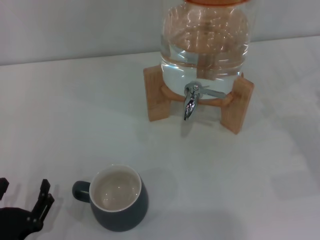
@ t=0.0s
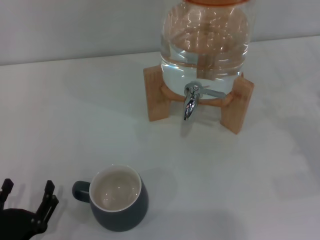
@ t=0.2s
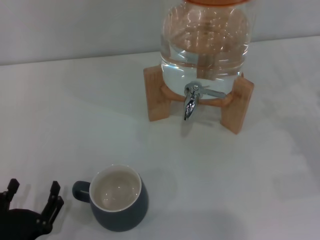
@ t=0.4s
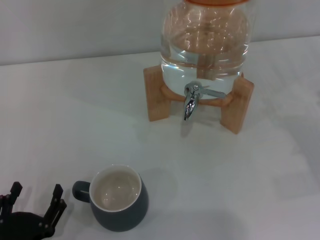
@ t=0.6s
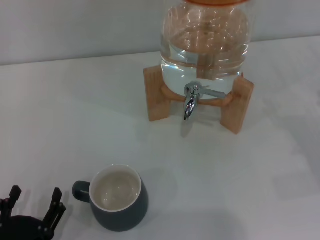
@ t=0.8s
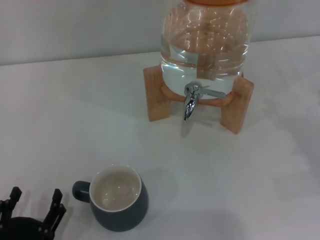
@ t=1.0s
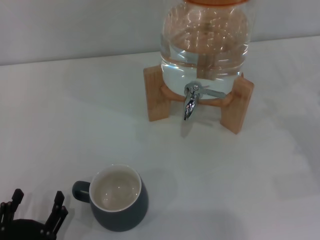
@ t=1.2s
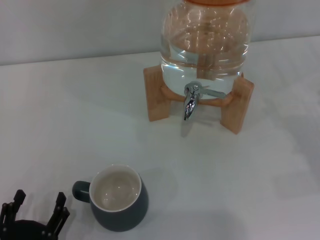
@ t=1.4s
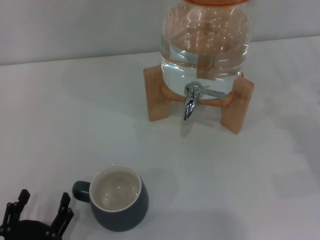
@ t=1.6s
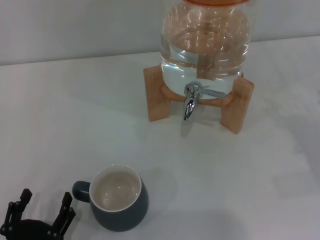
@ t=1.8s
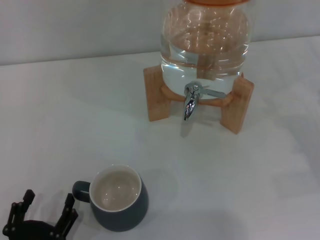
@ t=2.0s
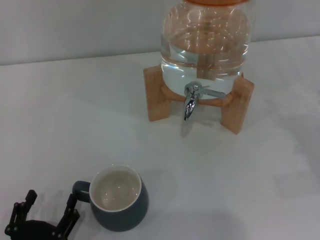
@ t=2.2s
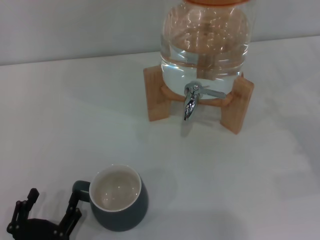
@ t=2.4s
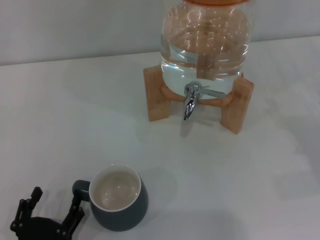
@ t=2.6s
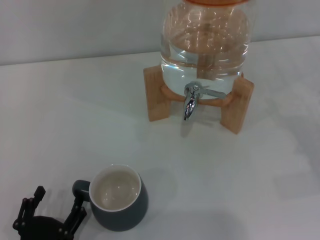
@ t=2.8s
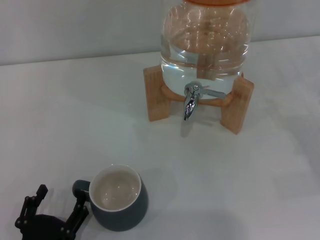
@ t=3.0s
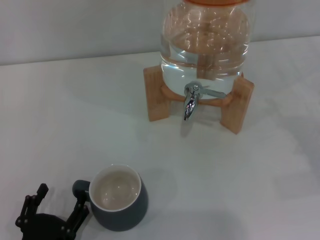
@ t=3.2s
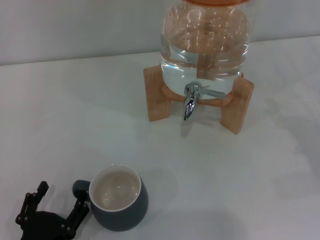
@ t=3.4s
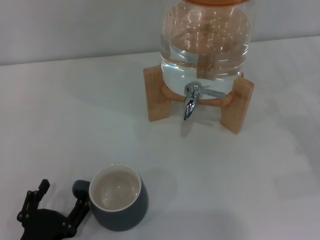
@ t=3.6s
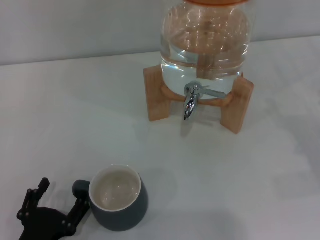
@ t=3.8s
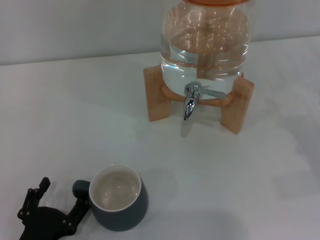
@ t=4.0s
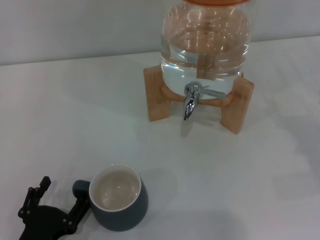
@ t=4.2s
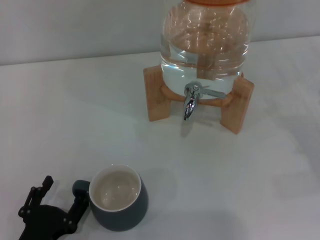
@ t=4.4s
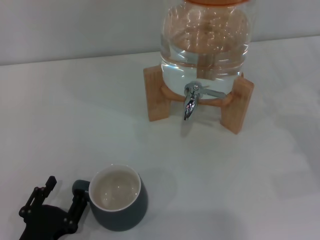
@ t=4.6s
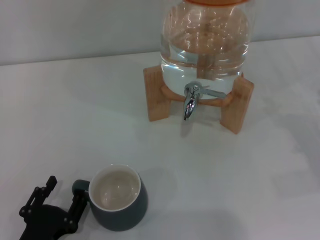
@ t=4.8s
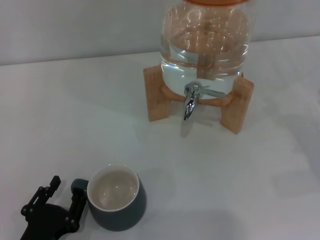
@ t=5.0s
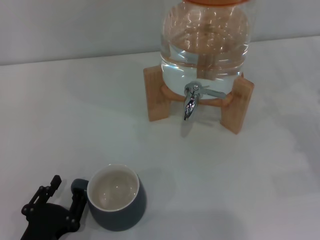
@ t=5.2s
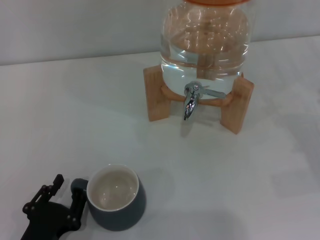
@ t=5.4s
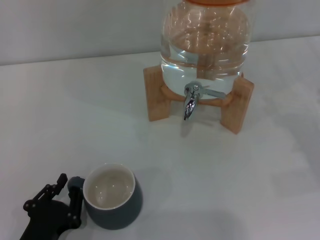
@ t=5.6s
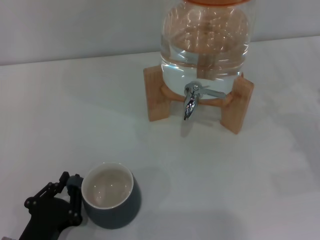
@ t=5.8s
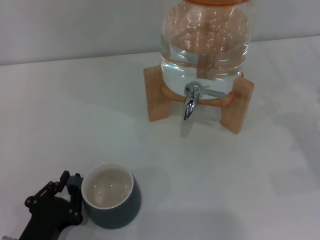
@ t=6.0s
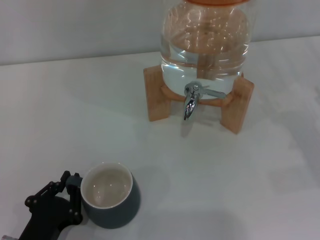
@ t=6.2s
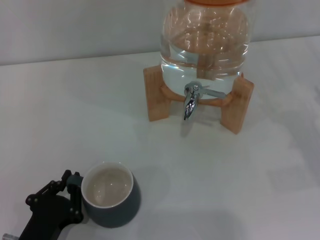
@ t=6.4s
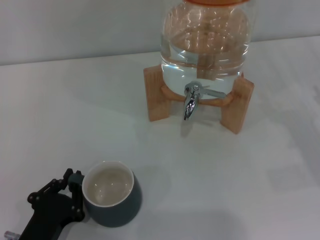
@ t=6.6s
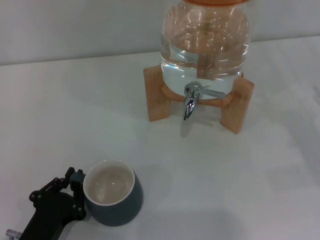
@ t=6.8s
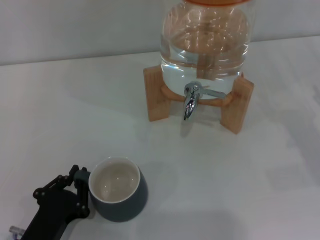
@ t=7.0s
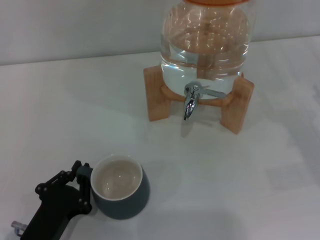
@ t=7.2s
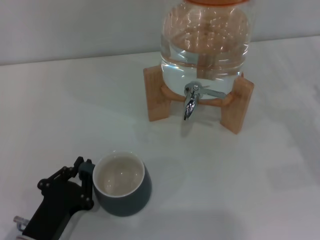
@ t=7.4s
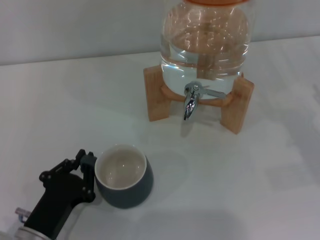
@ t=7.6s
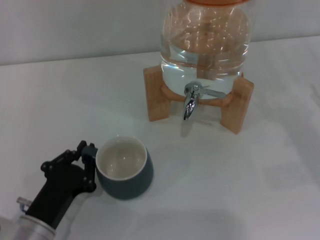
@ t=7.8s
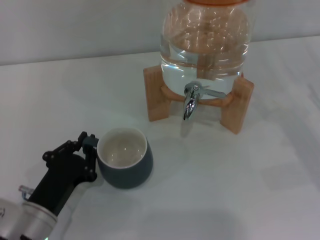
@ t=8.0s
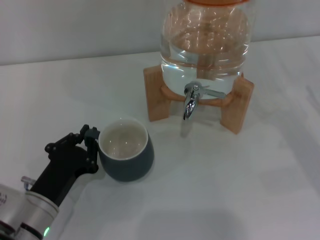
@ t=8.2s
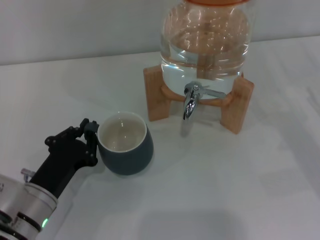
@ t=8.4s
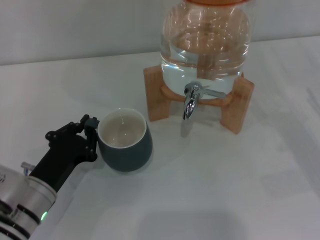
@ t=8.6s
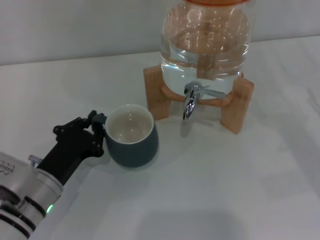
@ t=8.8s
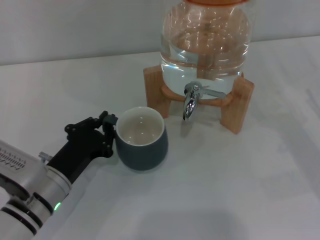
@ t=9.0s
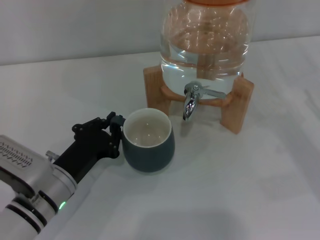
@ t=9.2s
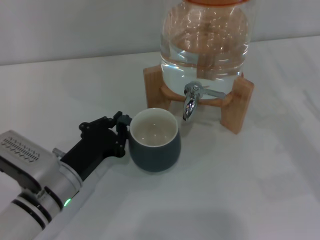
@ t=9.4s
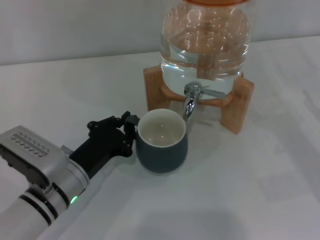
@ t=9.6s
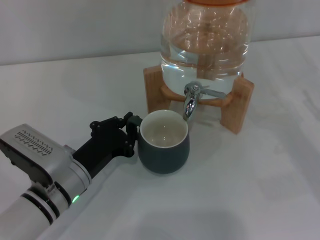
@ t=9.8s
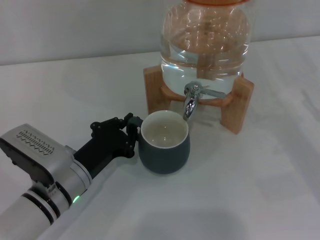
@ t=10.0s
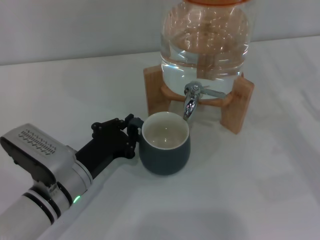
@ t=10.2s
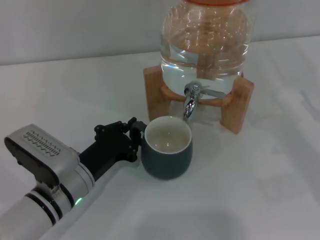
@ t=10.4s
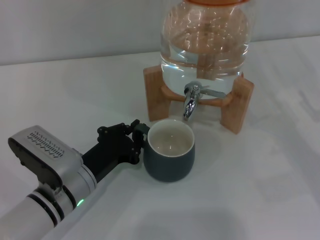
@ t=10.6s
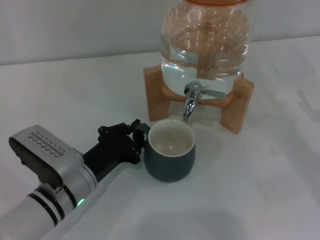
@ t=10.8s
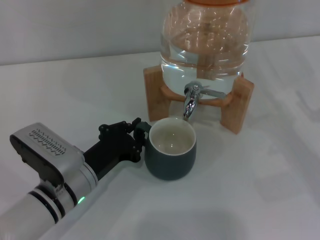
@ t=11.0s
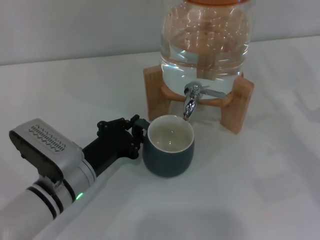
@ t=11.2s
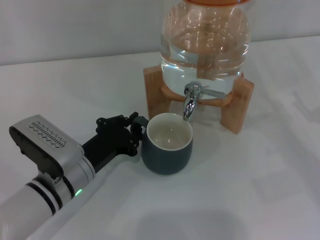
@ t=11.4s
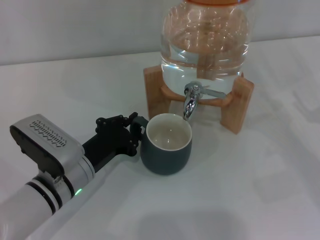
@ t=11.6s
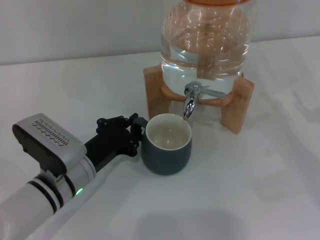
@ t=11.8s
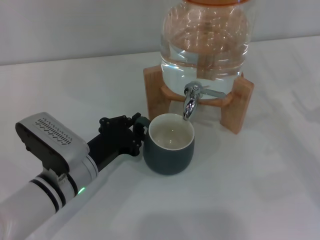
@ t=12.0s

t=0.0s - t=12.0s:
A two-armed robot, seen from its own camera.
Task of the whole recording: the left gripper pick up the black cup and place it horizontally under the faucet, the right gripper turn on the faucet to fill the cup, and then turn off the faucet.
t=0.0s - t=1.6s: There are only small adjustments of the grippers.
t=1.6s - t=3.0s: The two grippers keep their place.
t=3.0s - t=4.4s: The grippers stay close to where they were, moving slightly.
t=4.4s - t=6.0s: The left gripper closes its fingers.
t=6.0s - t=7.6s: The grippers stay close to where they were, moving slightly.
t=7.6s - t=9.0s: The left gripper heads forward, covering some 10 cm.
t=9.0s - t=12.0s: The grippers move only a little.

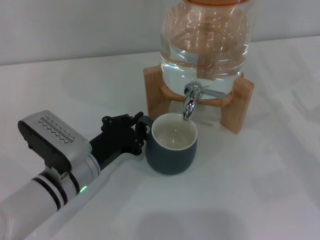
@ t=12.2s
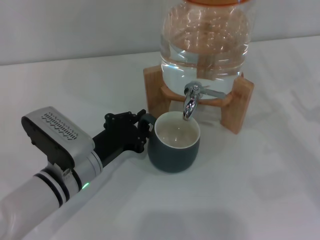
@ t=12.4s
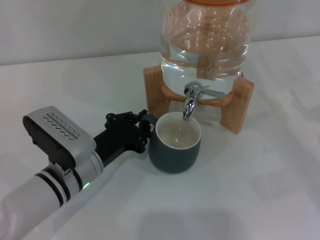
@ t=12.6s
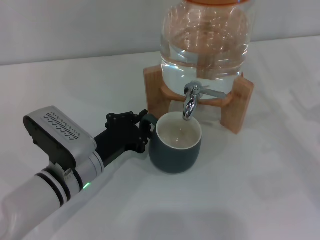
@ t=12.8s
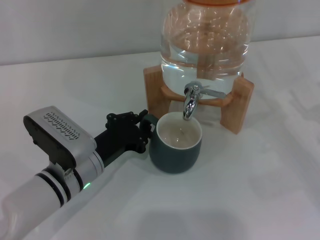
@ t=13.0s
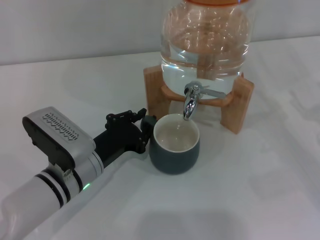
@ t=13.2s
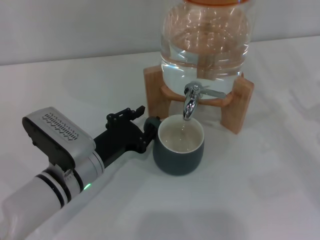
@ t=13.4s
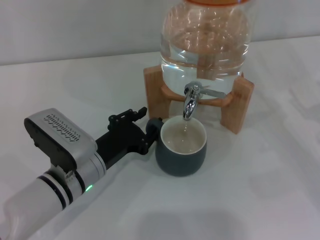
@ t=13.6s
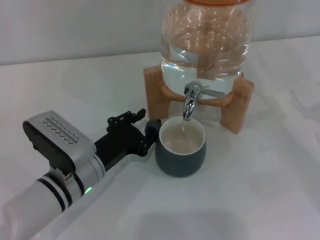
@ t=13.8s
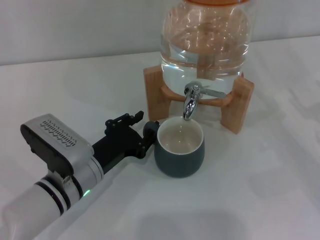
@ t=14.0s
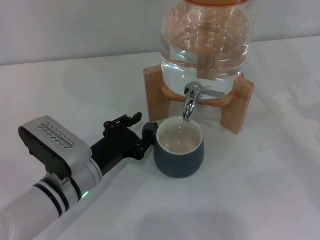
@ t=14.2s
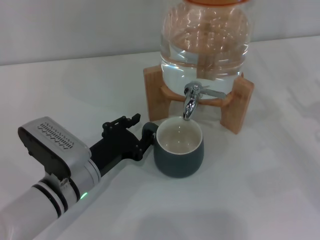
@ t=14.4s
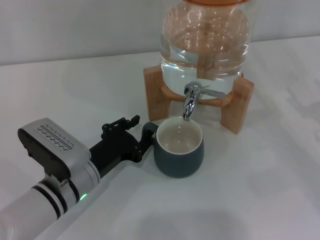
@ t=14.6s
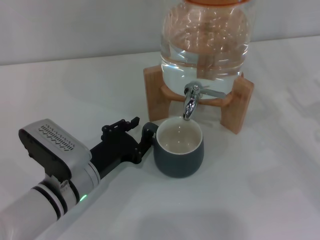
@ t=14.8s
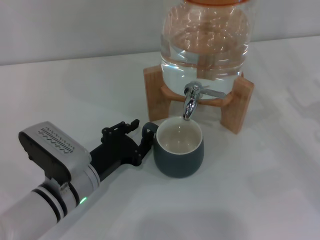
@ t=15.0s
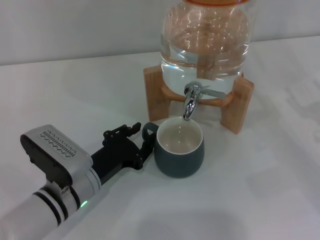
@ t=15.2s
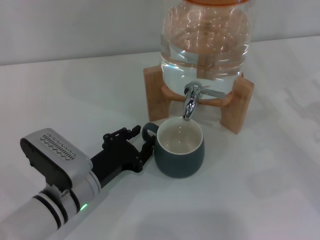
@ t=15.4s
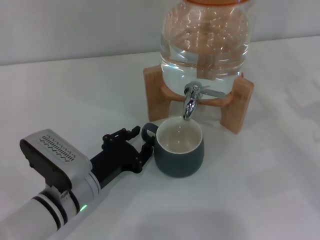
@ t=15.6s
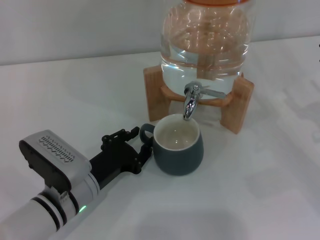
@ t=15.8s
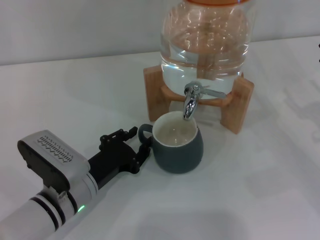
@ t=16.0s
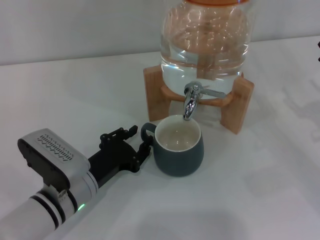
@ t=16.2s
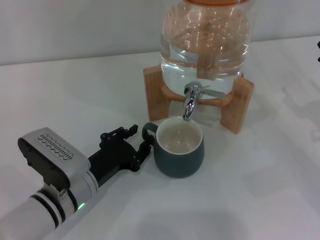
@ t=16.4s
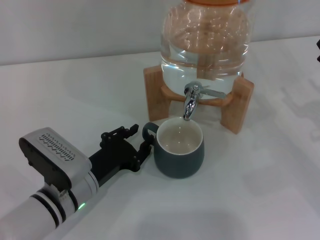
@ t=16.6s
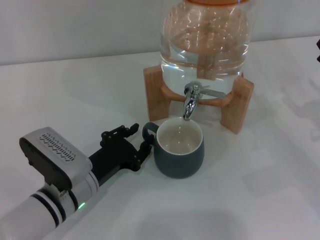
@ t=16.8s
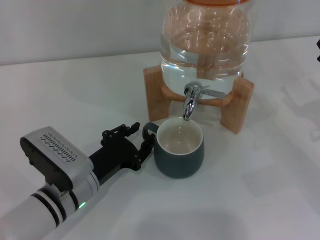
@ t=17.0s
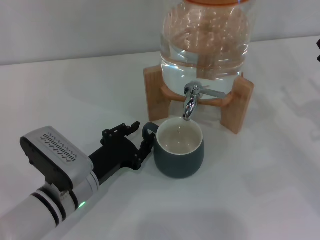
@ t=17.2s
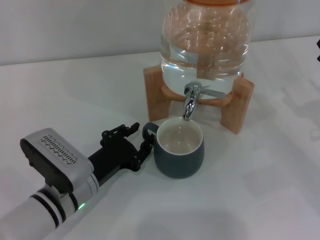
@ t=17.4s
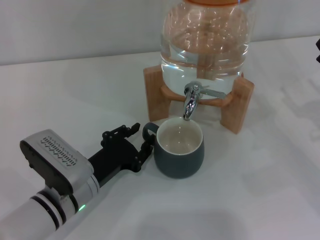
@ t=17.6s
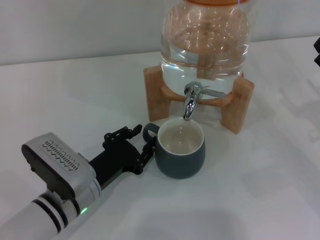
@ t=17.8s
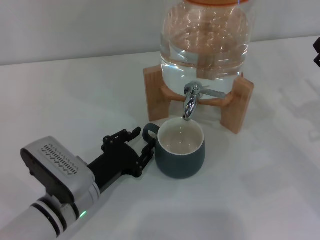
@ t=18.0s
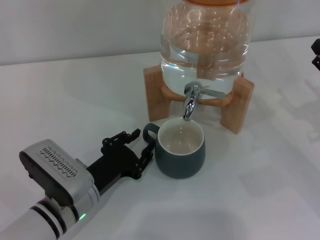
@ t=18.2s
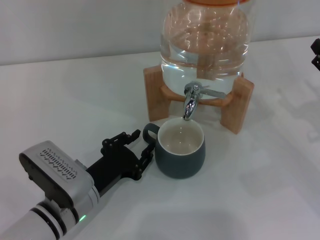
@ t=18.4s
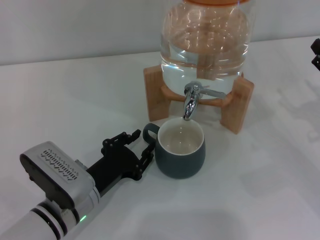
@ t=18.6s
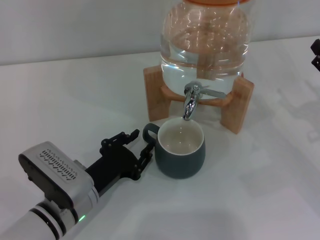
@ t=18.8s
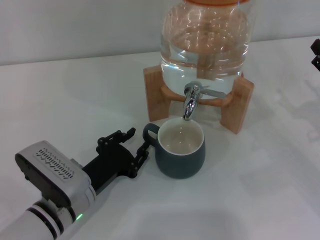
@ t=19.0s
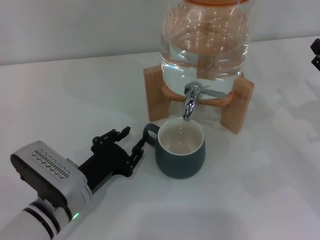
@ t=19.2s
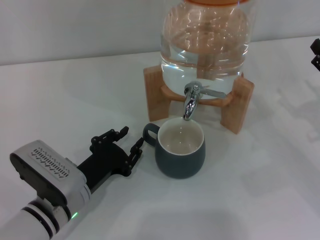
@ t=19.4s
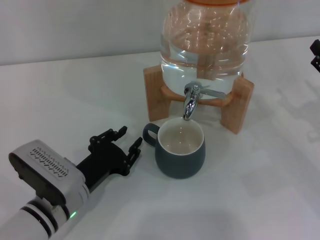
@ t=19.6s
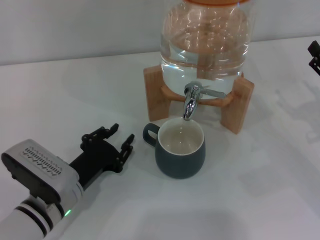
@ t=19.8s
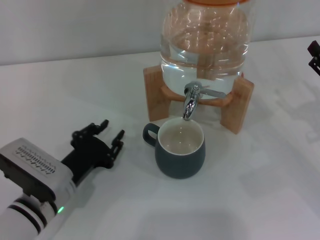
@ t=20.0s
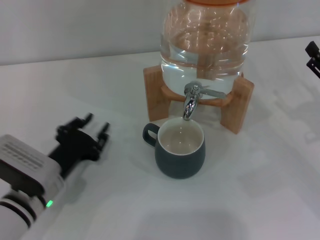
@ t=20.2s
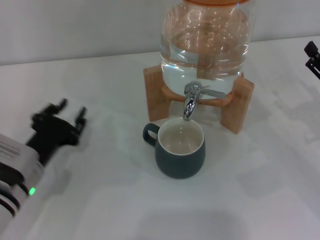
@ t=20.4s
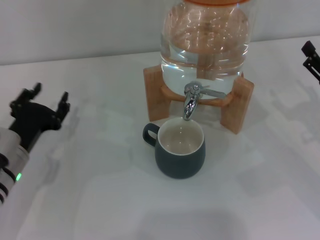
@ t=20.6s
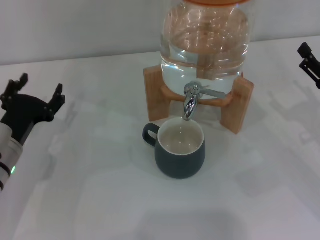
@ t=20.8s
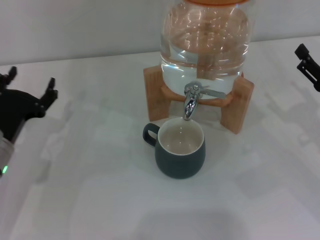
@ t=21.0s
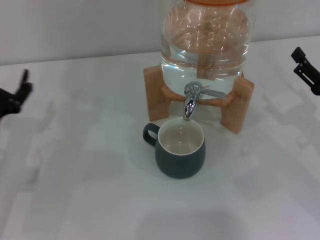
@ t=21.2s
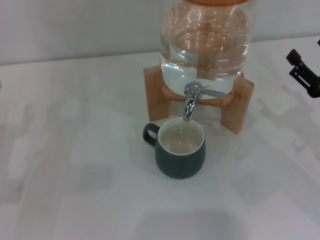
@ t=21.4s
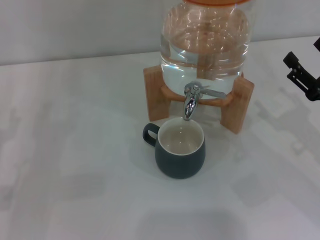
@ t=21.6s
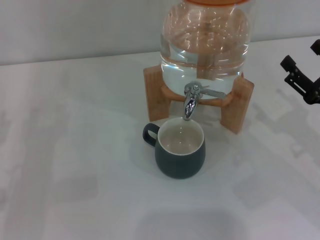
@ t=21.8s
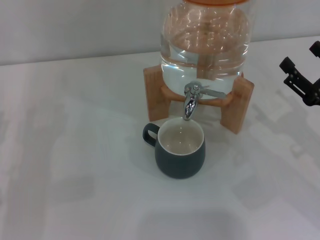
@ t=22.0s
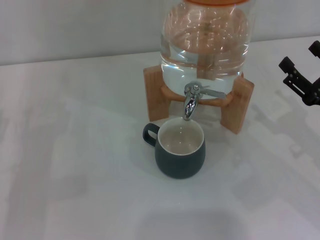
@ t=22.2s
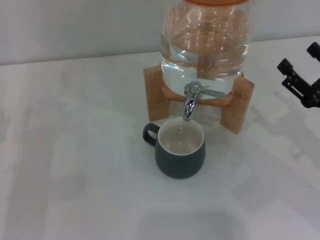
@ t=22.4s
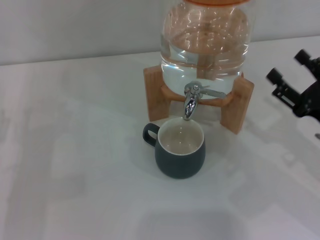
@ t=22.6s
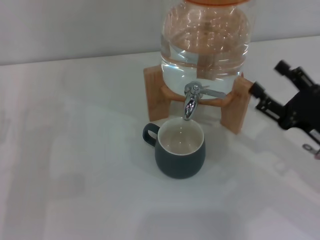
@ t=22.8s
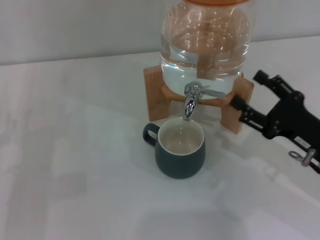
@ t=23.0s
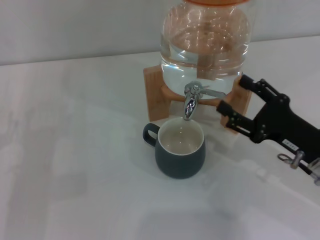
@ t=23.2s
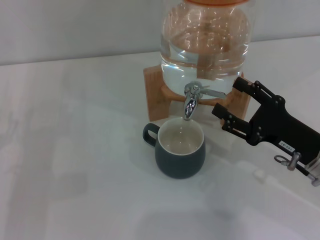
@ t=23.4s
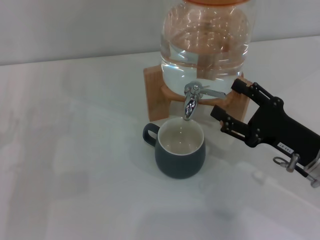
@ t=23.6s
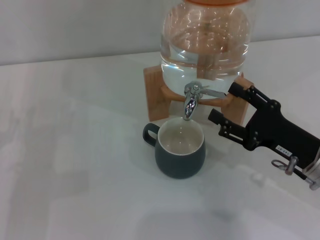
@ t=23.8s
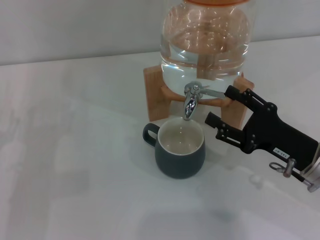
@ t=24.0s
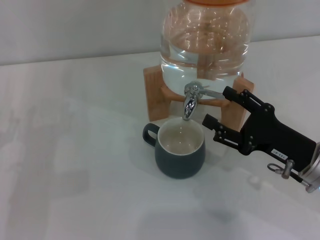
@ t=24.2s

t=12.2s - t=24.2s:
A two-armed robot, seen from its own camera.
Task of the whole recording: the left gripper pick up the black cup and place it horizontally under the faucet, the right gripper turn on the faucet to fill the cup, and then turn off the faucet.
Step, t=12.2s - t=19.8s: Move the cup beneath the water dispenser nozzle with the left gripper.
t=12.2s - t=13.8s: The left gripper opens.
t=13.8s - t=15.2s: The grippers make only small movements.
t=15.2s - t=16.6s: The two grippers keep their place.
t=16.6s - t=19.8s: The grippers make only small movements.
t=19.8s - t=21.2s: The left gripper moves to the left, some 10 cm, and opens up.
t=22.6s - t=24.2s: The right gripper travels to the left by approximately 5 cm.
